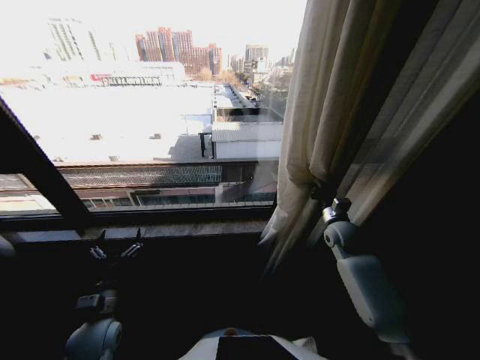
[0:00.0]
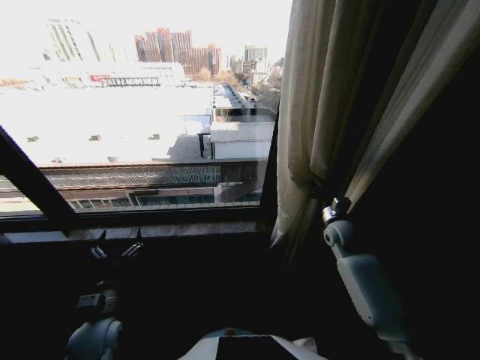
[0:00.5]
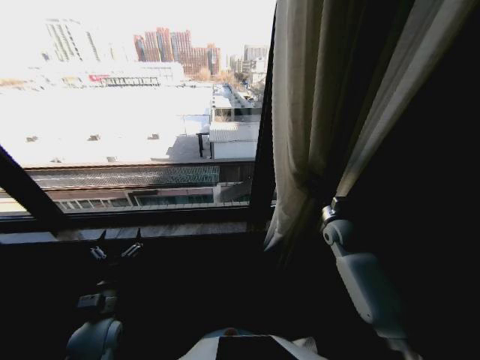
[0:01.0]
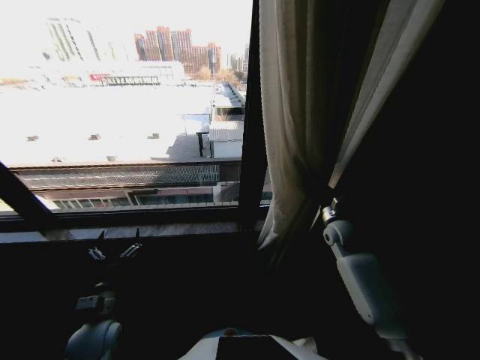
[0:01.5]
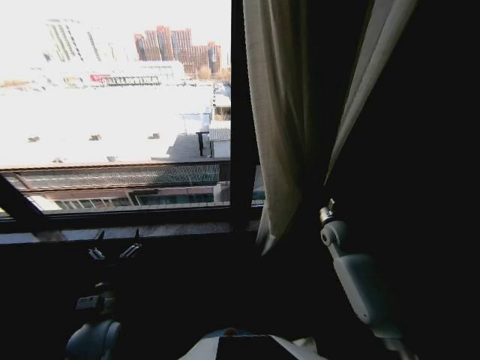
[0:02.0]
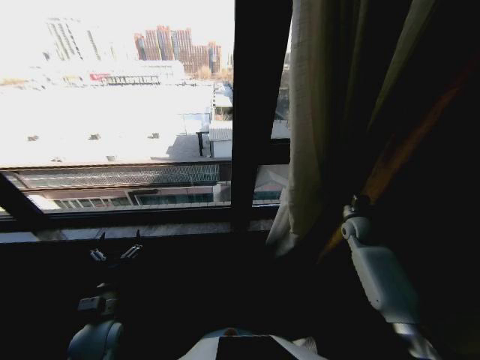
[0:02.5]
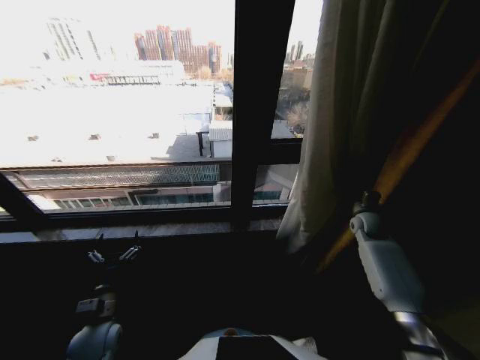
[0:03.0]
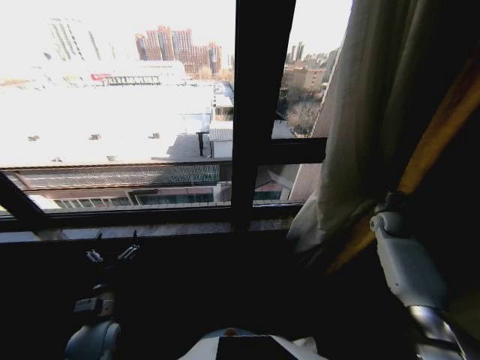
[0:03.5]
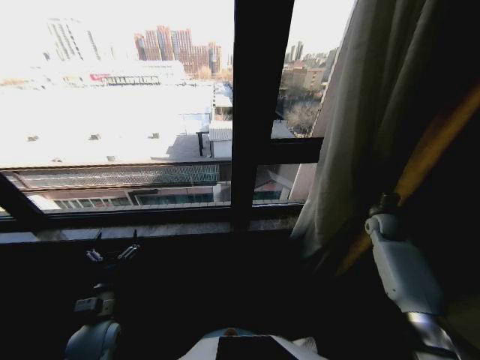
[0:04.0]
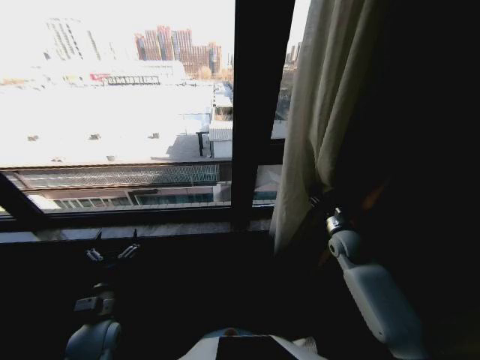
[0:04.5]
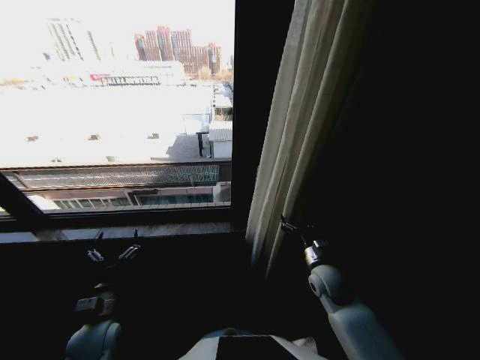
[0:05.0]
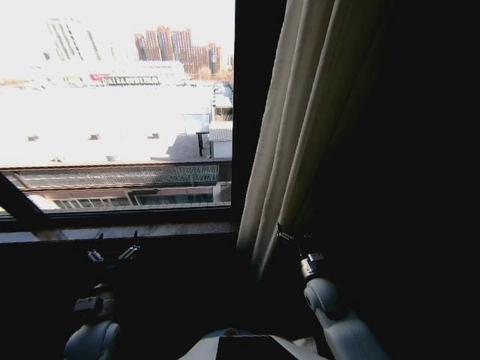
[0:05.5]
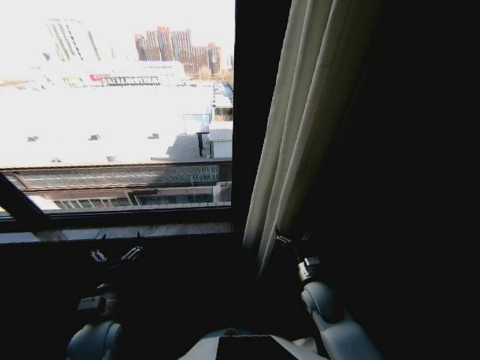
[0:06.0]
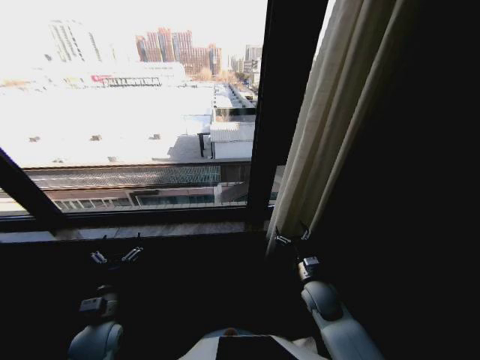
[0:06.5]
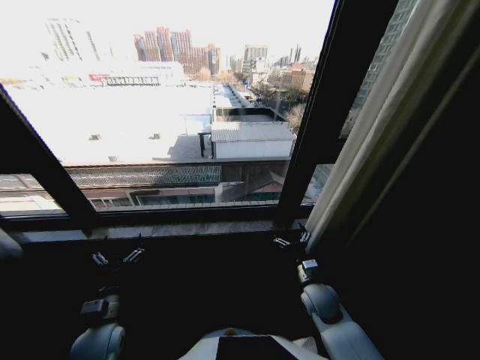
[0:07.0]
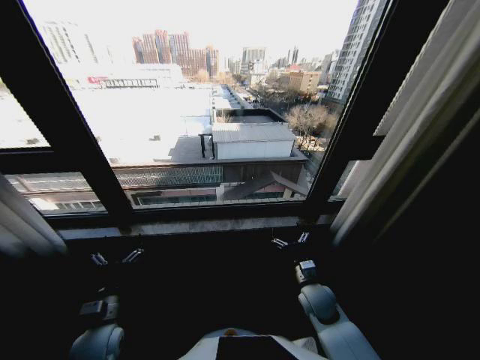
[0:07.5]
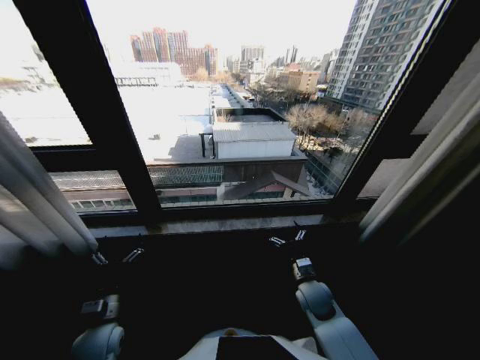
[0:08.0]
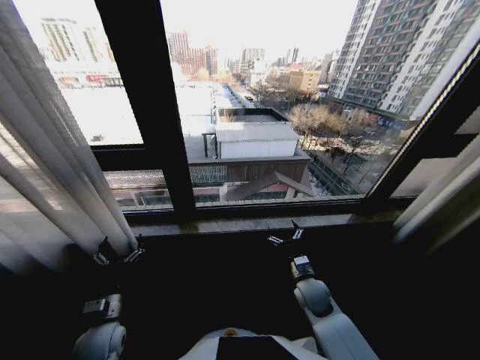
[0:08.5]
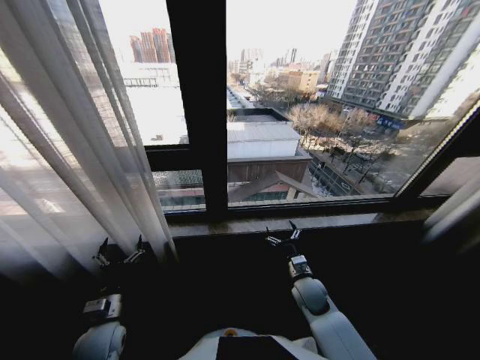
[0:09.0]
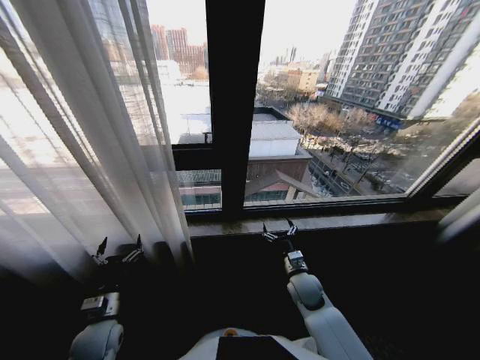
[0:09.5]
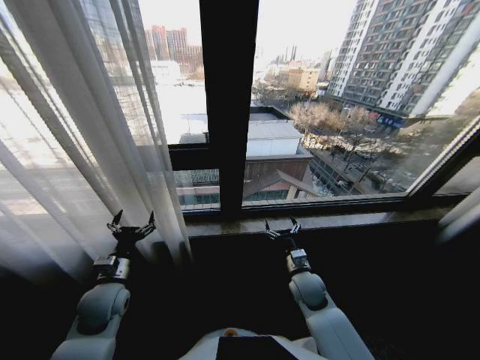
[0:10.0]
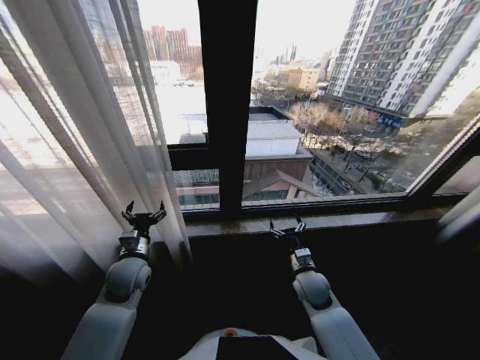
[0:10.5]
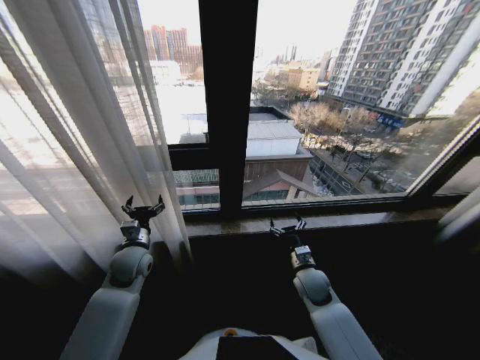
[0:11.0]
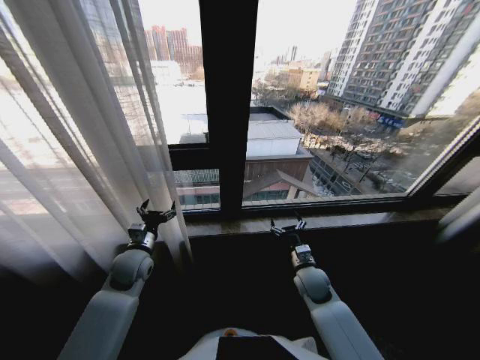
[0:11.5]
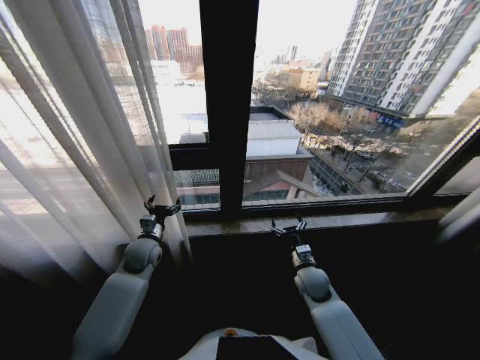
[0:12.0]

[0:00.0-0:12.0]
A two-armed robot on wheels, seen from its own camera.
Task of the whole recording: Open the curtains by pulling them apart, changing their state from closed to fully open.
0:02.0 to 0:04.0: The right gripper is displaced to the right by some 20 cm.
0:04.0 to 0:06.0: The right gripper is displaced to the left and backward by roughly 30 cm, and opens its fingers.
0:08.0 to 0:10.0: The left gripper travels forward and upward by approximately 10 cm.
0:10.0 to 0:12.0: The left gripper goes roughly 15 cm forward.

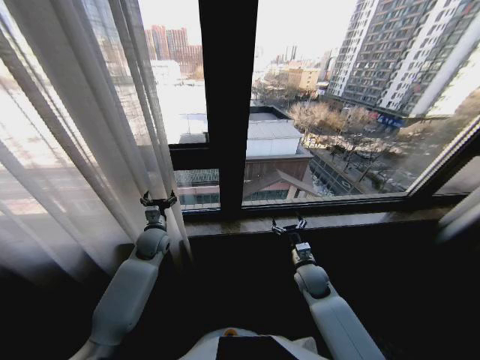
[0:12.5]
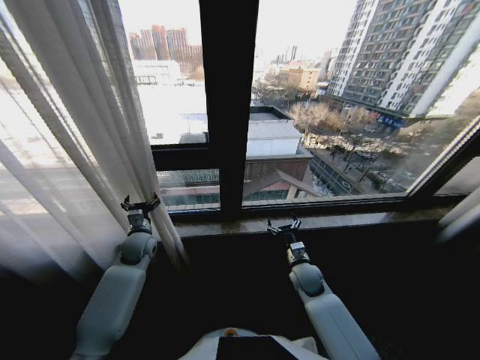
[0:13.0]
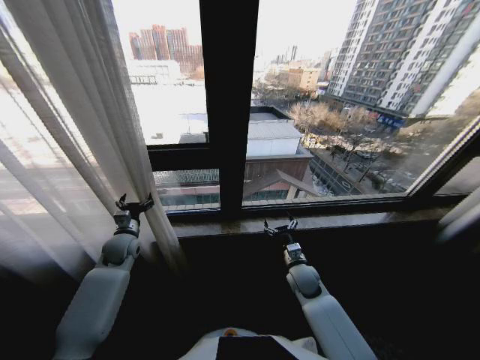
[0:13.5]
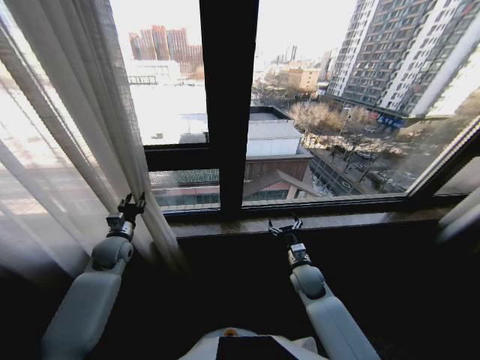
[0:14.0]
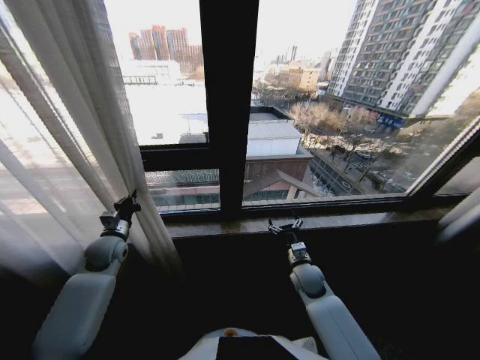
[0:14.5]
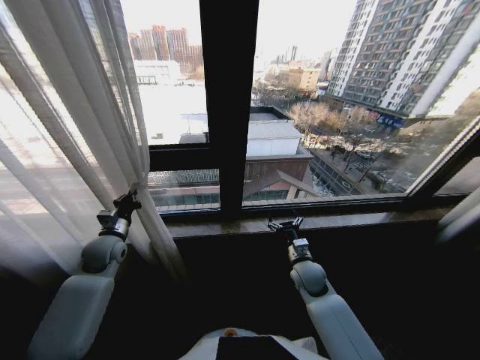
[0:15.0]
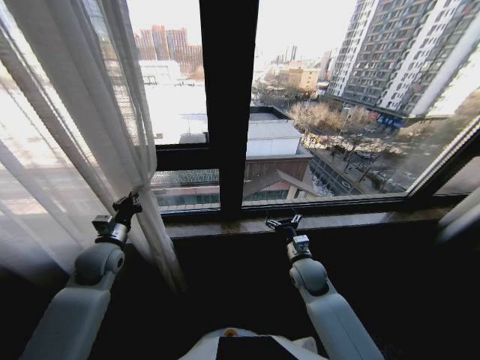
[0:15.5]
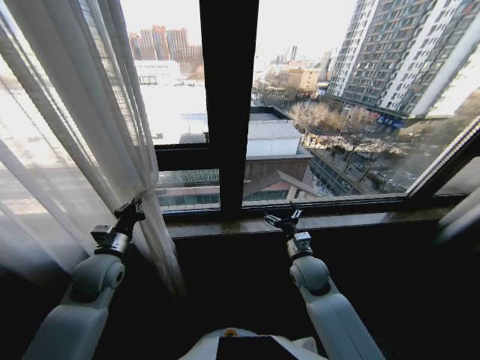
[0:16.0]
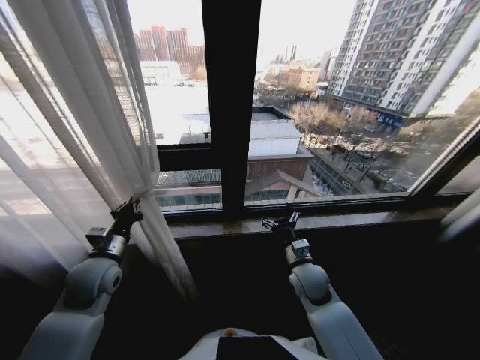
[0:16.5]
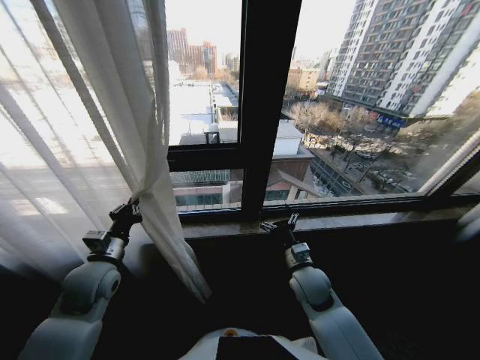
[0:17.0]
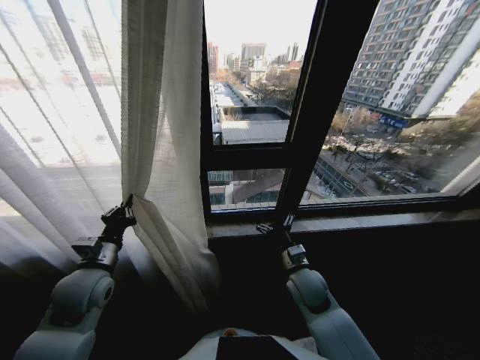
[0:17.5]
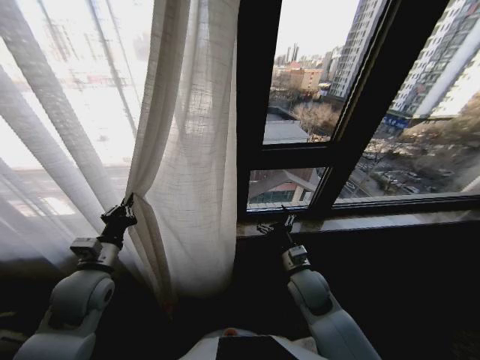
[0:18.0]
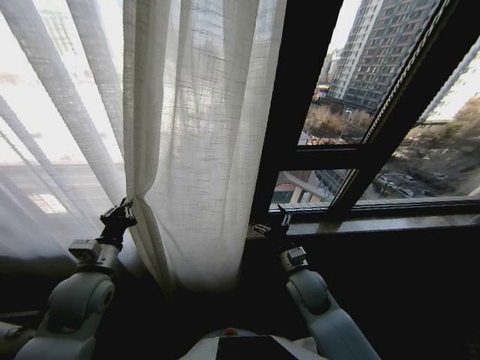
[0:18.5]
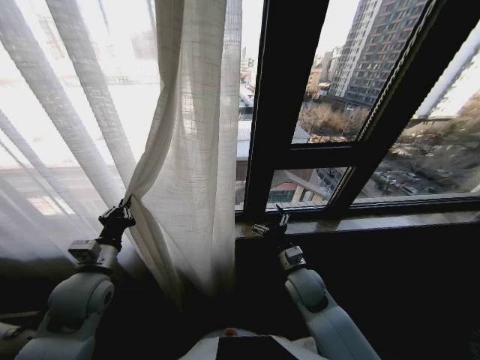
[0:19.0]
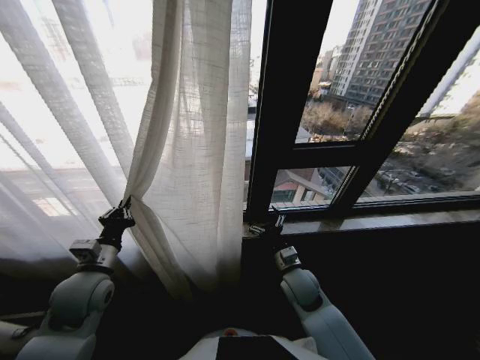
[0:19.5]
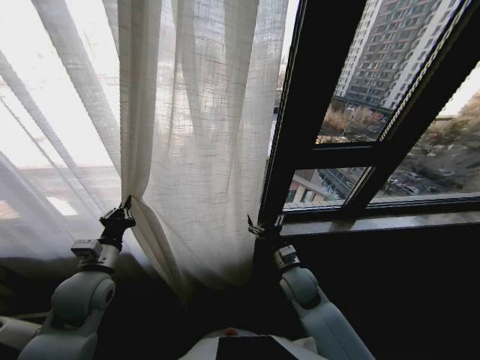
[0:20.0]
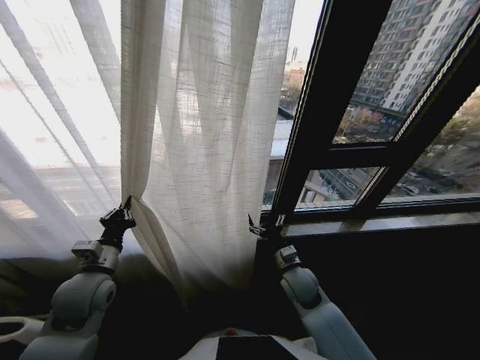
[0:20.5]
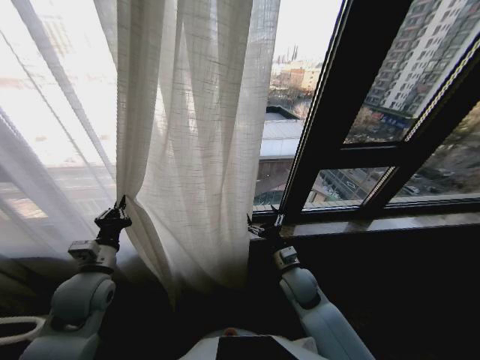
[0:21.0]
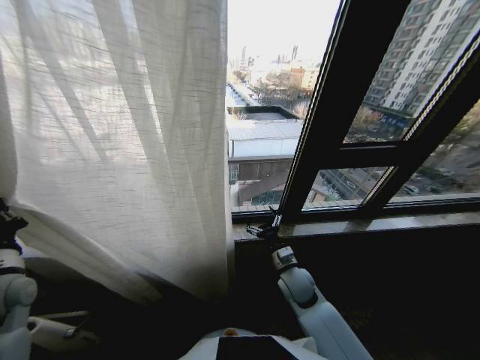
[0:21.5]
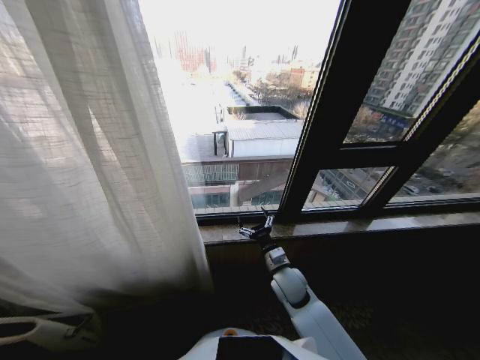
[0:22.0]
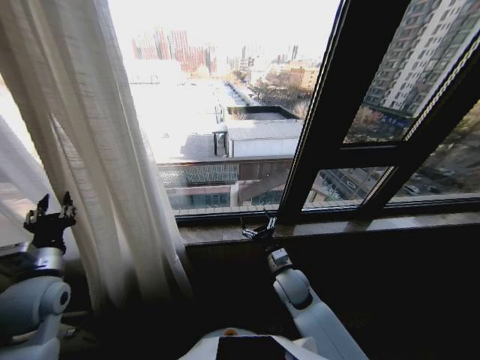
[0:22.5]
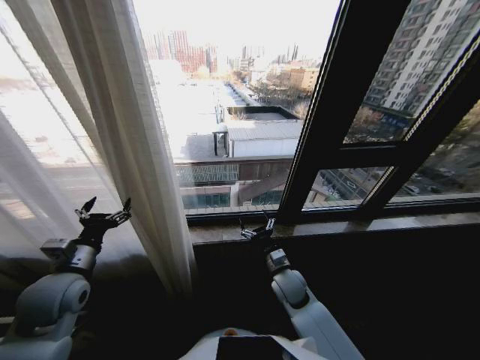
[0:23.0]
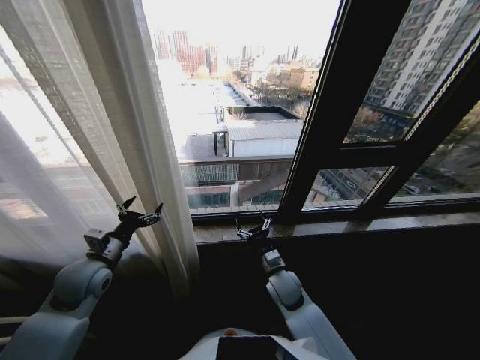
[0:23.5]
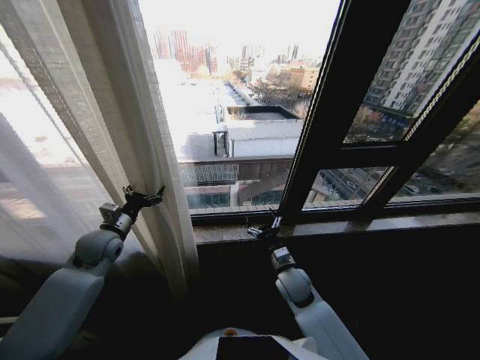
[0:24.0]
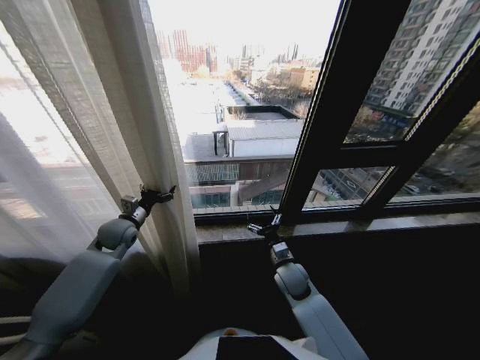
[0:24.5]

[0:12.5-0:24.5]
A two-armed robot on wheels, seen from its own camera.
Task of the whole recording: Open the curtains by pulling them apart, changing their state from closed to fully open.
0:12.5 to 0:14.5: The left gripper travels to the left by some 10 cm, and closes up.
0:14.5 to 0:16.5: The right gripper goes some 5 cm upward, while the left gripper shifts some 10 cm backward.
0:20.5 to 0:22.5: The left gripper moves approximately 25 cm to the left and comes back, and opens its fingers.
0:22.5 to 0:24.5: The left gripper travels forward by about 20 cm, and opens its fingers.

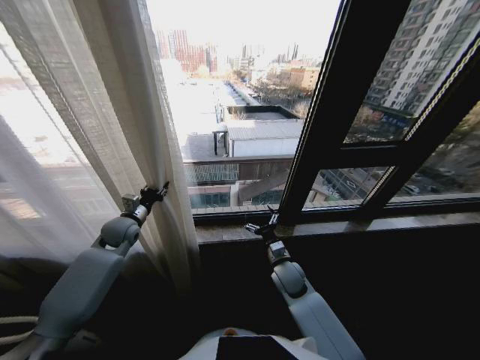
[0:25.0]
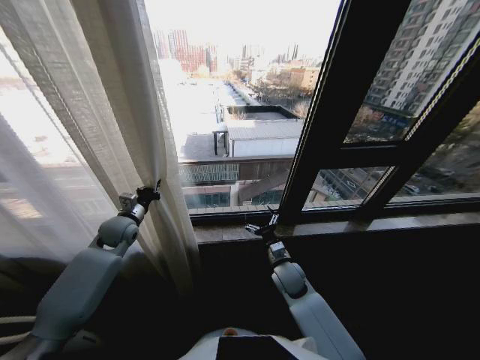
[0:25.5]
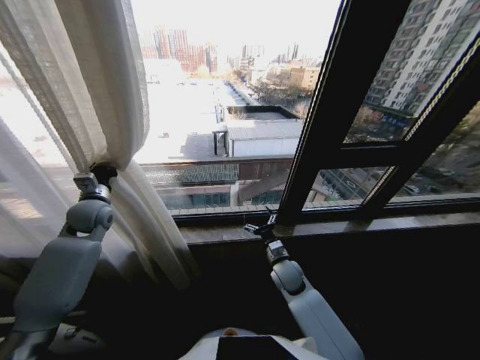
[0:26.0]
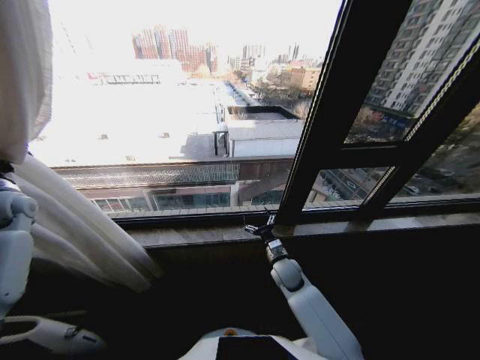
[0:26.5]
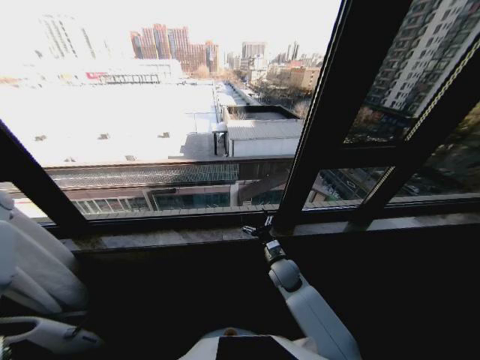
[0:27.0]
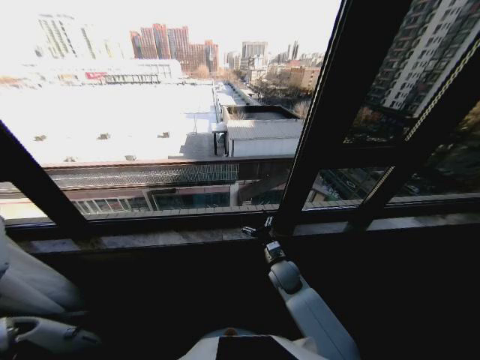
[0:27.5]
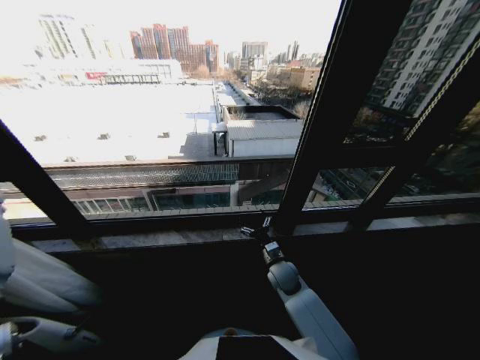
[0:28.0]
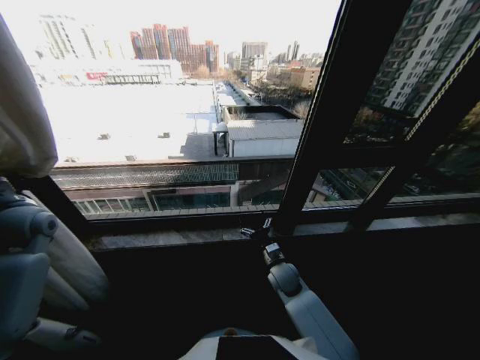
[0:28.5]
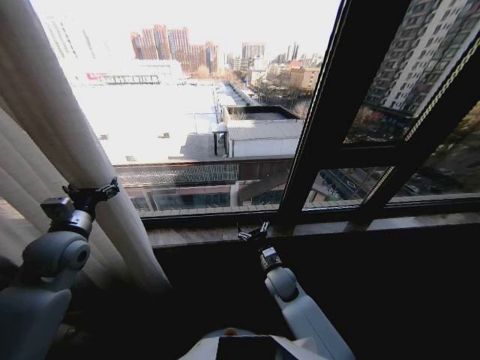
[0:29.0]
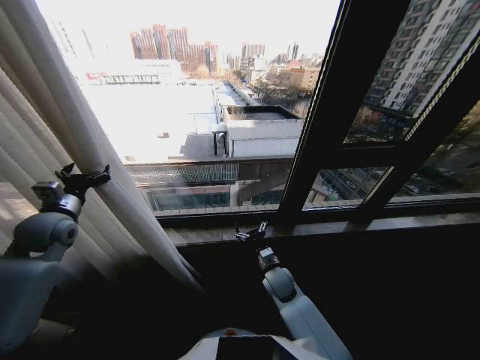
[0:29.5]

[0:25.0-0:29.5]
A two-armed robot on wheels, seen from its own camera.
Task of the whole recording: Open the curtains by pulling them apart, changing their state from closed to fully open.
0:25.0 to 0:27.0: The left gripper heads to the left and upward, covering approximately 30 cm, and closes.
0:27.0 to 0:29.5: The left gripper moves to the right, about 20 cm, and opens.
